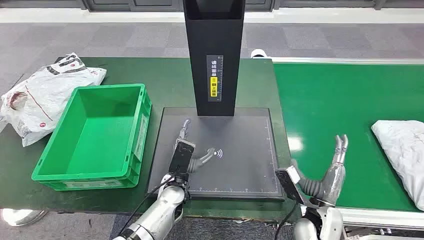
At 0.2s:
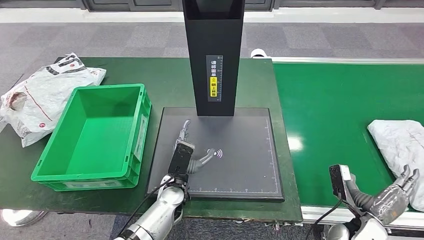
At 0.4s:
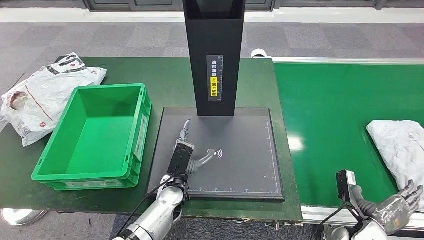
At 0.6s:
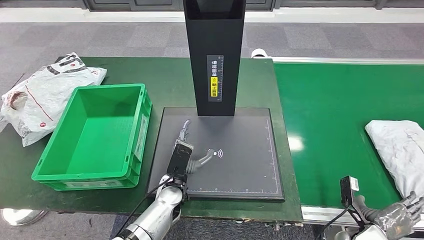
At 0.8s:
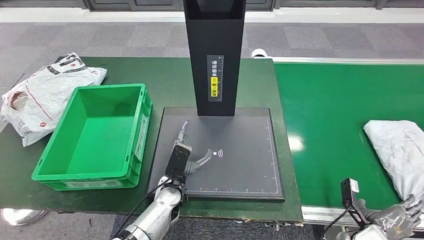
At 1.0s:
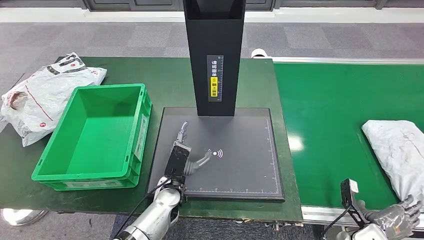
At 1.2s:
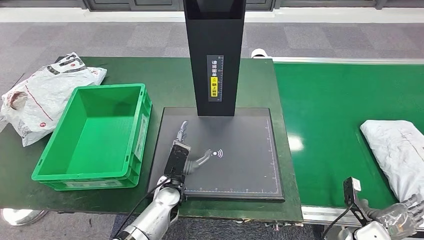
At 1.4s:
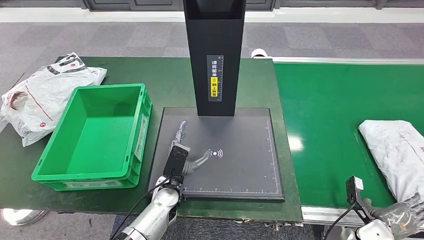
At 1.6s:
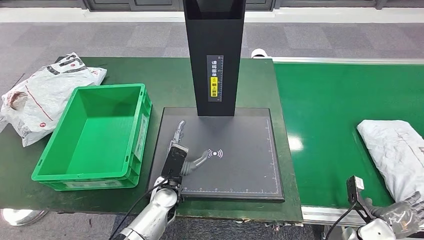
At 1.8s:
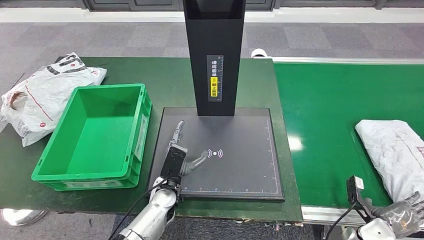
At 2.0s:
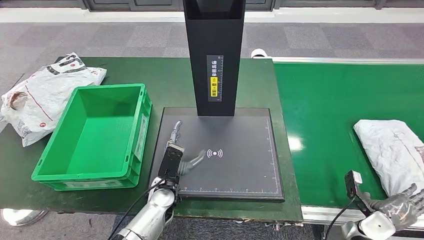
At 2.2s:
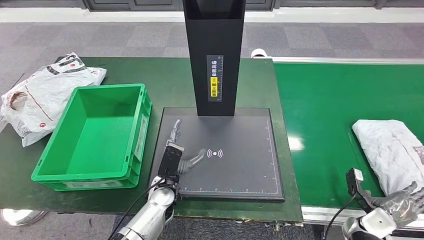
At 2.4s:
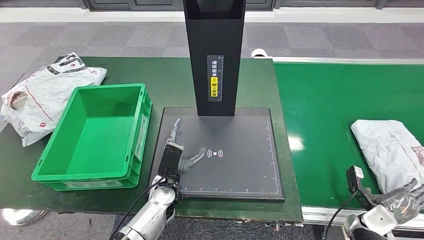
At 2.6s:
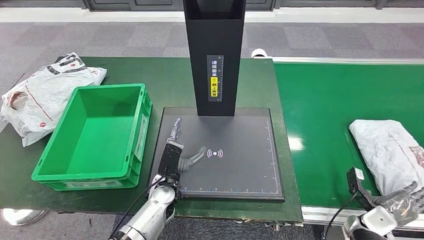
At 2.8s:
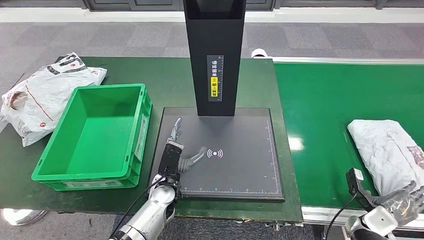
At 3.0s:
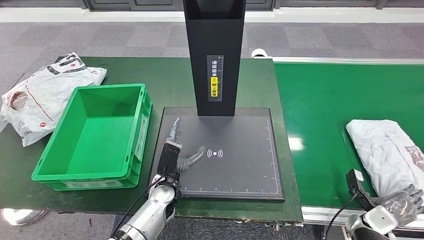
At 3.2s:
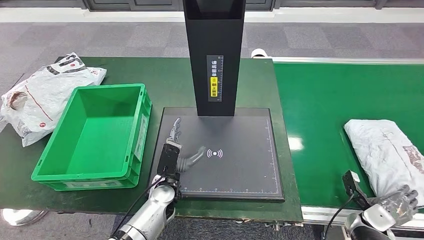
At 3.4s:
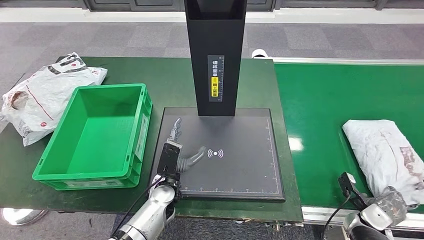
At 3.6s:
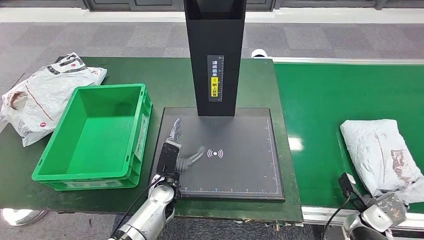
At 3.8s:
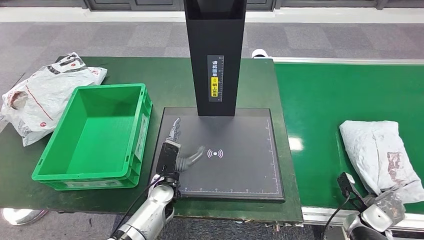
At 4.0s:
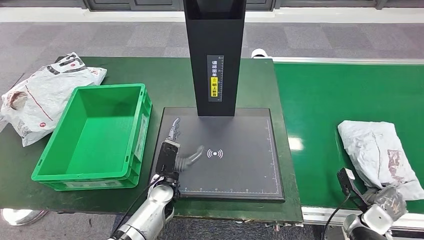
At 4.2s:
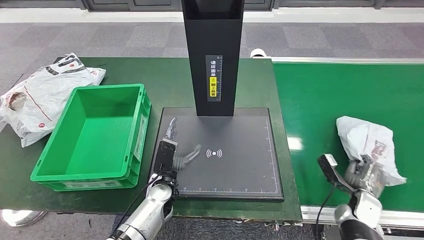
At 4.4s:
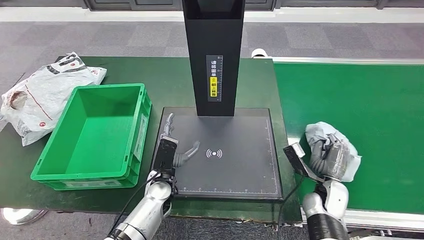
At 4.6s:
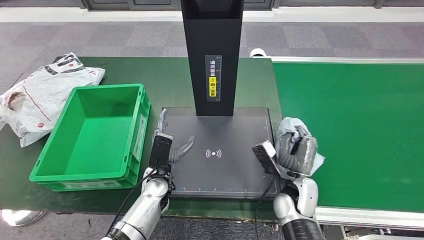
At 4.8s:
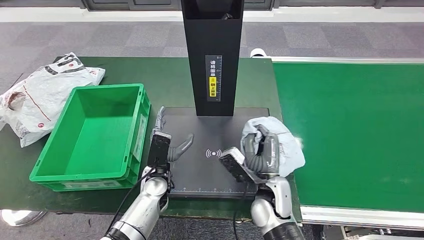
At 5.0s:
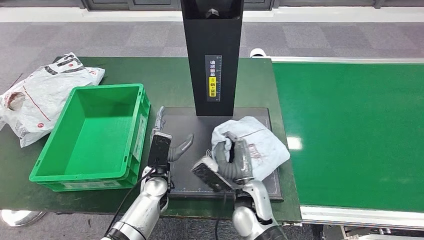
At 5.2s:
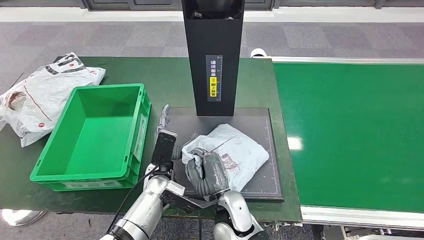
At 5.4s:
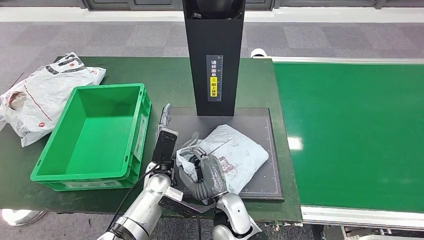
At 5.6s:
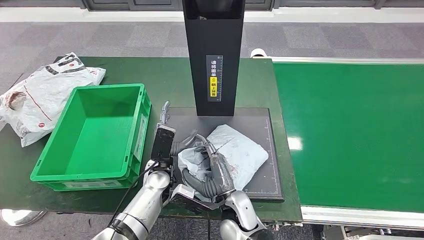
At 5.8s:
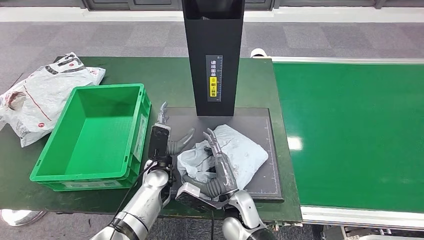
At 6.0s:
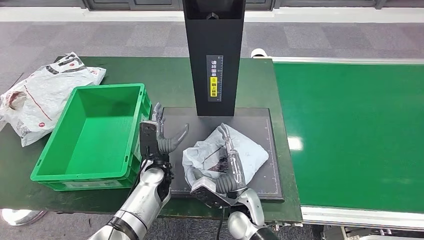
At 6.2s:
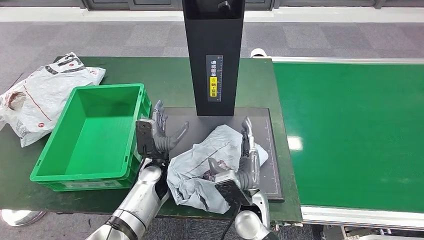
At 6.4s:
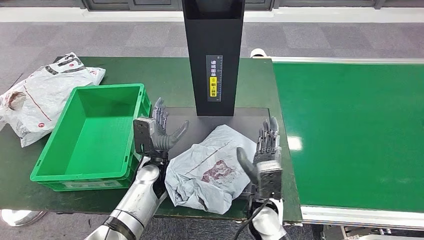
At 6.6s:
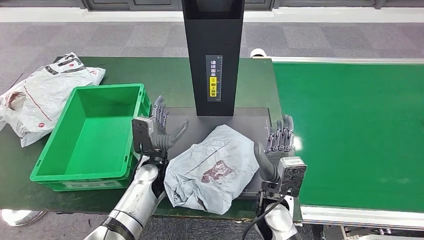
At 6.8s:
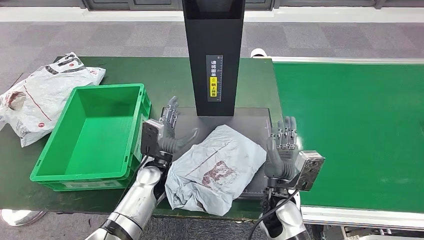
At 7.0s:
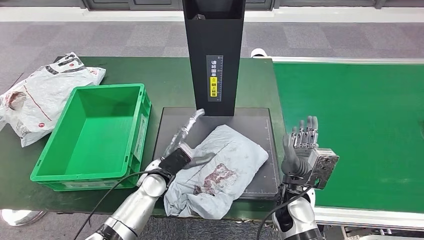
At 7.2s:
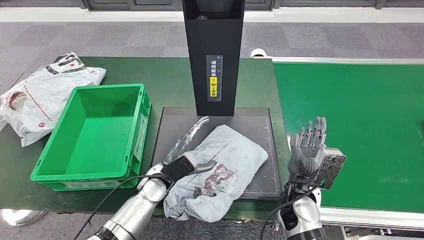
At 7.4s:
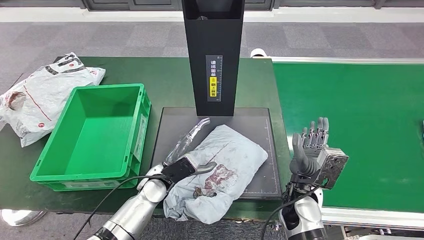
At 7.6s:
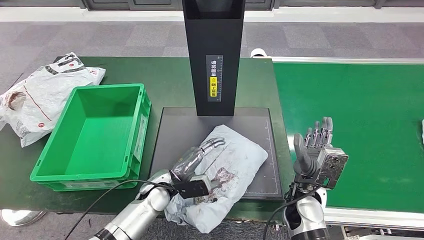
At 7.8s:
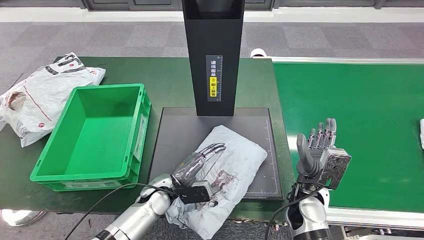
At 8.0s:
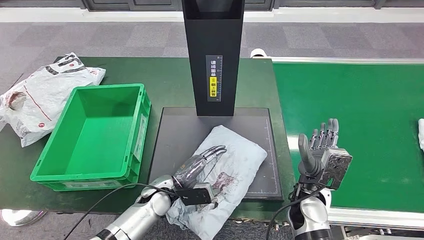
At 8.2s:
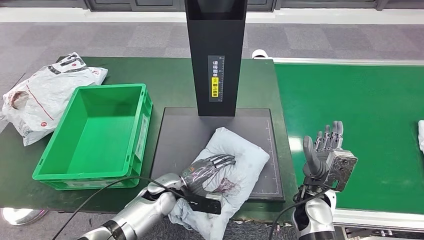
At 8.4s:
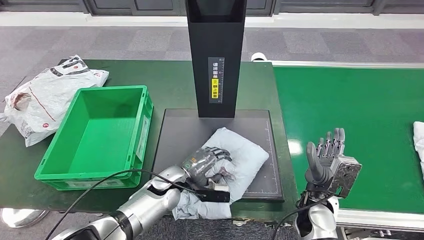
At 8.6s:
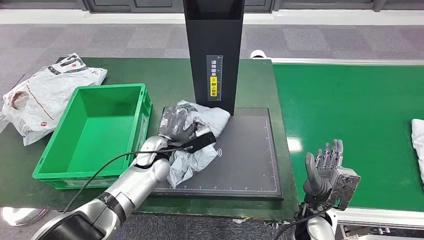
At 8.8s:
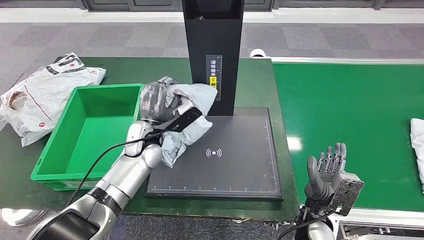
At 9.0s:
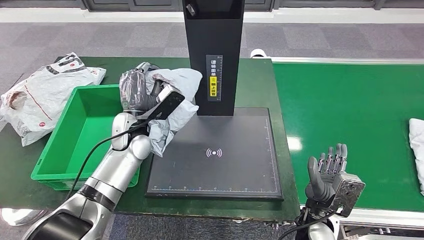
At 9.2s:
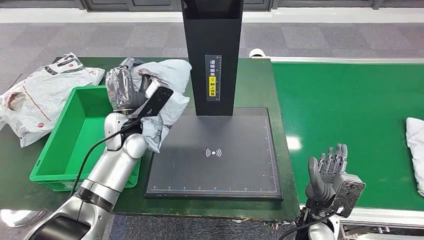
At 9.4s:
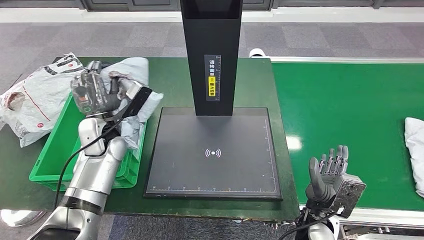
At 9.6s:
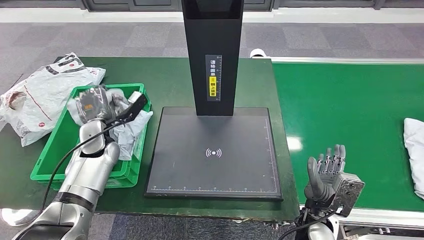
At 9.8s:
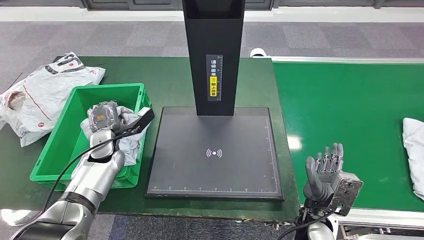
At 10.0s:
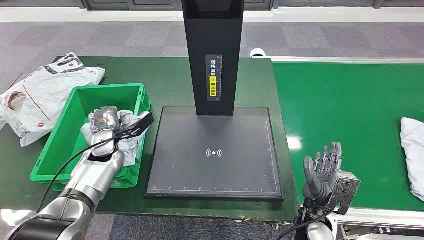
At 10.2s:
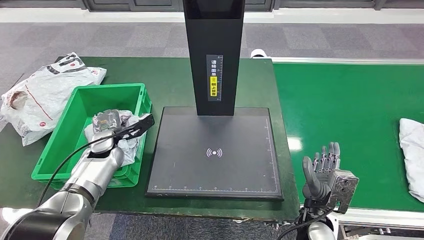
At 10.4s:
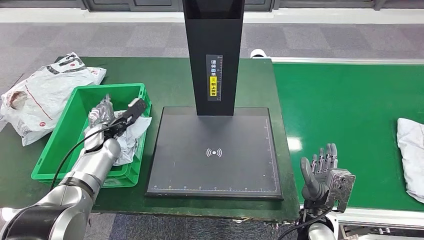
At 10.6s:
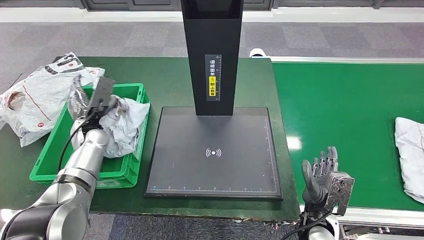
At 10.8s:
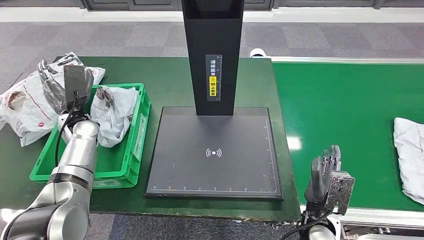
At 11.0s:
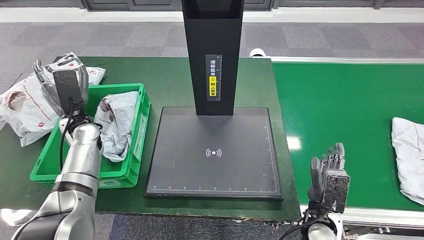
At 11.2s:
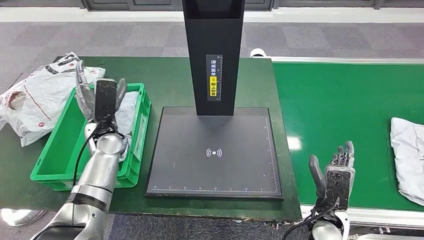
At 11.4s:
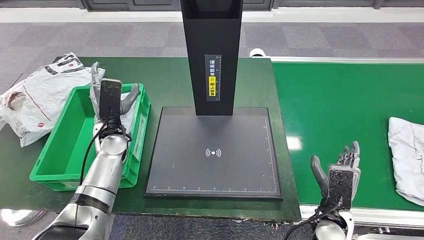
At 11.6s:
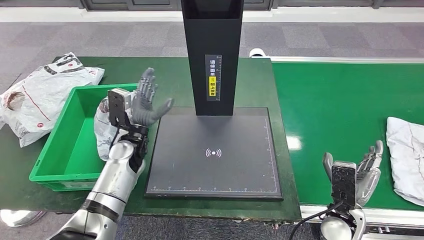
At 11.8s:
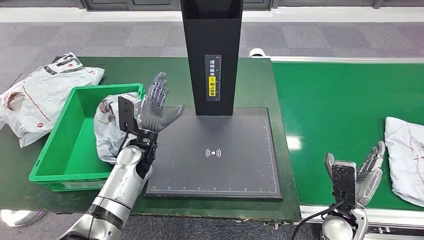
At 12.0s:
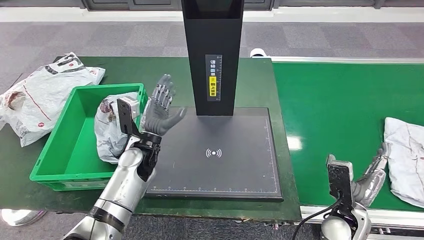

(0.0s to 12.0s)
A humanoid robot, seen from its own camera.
Step, 0.0s - 4.4s: Take the parcel off the conveyor belt.
Step, 4.6s - 6.2s: Place the parcel onto the inbound machine.
Step, 6.4s - 9.0s: Pick up the parcel from the inbound machine.
Step, 9.2s - 10.6s: Put the parcel inside the courier box.
1.6s - 3.0s: The hands stay close to where they were, moving slightly.
3.0s - 4.4s: The right hand shifts approximately 15 cm to the left and upward.
4.4s - 6.0s: The right hand shifts some 20 cm to the left.
6.0s - 7.6s: The right hand goes some 15 cm to the right.
9.0s - 10.4s: The left hand shifts about 15 cm to the left and downward.

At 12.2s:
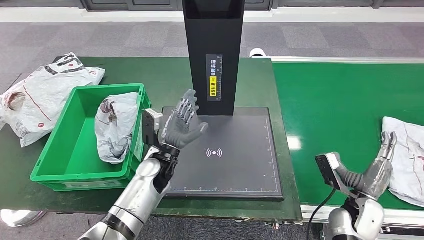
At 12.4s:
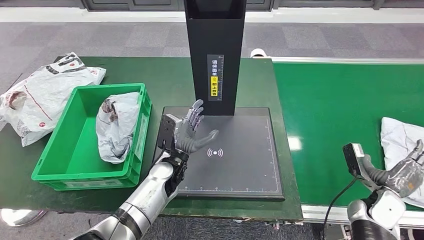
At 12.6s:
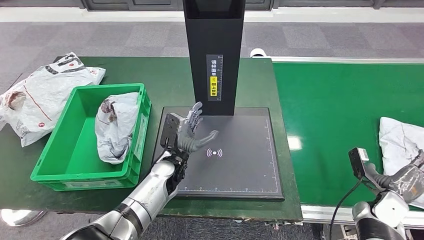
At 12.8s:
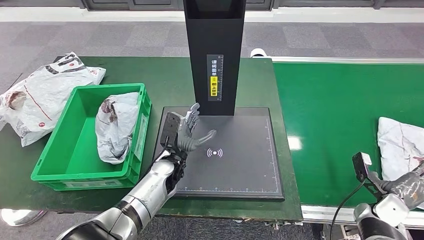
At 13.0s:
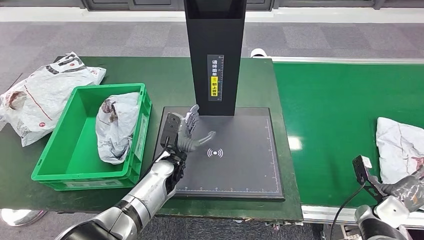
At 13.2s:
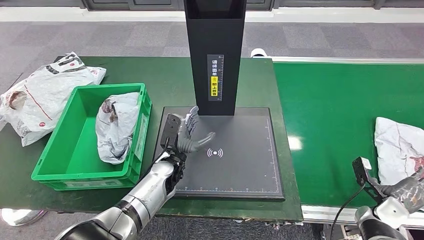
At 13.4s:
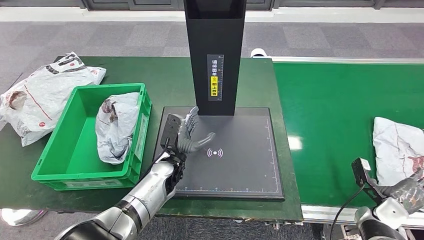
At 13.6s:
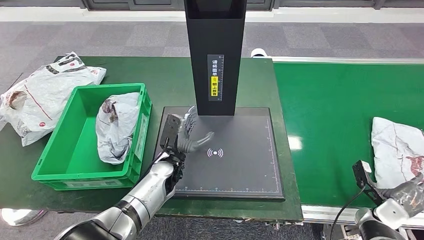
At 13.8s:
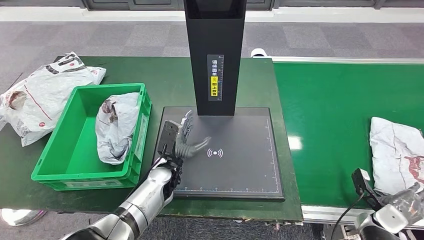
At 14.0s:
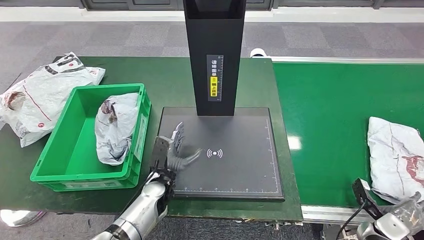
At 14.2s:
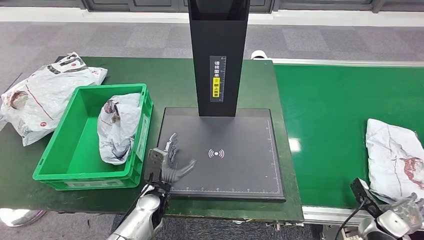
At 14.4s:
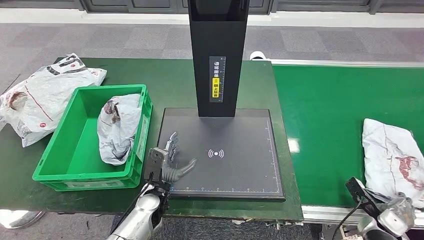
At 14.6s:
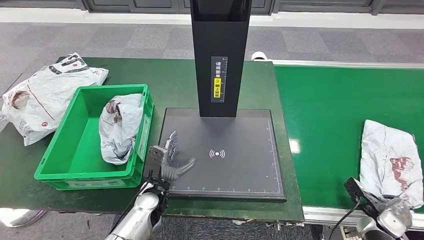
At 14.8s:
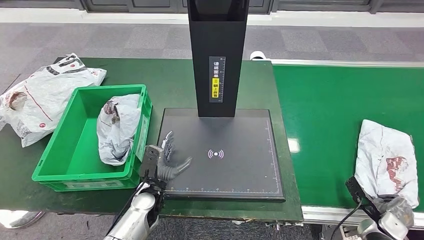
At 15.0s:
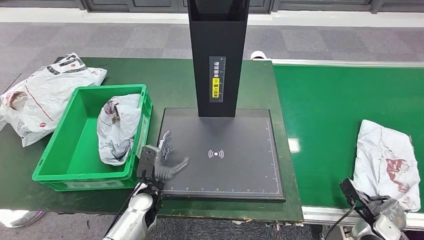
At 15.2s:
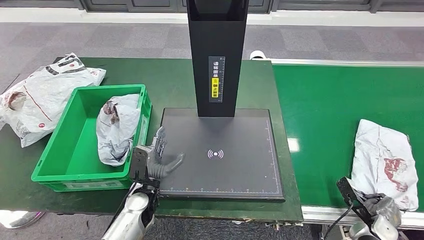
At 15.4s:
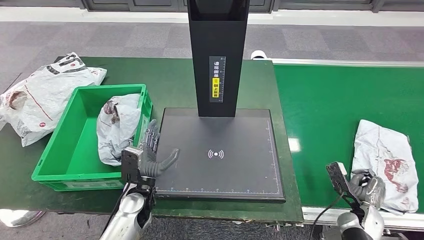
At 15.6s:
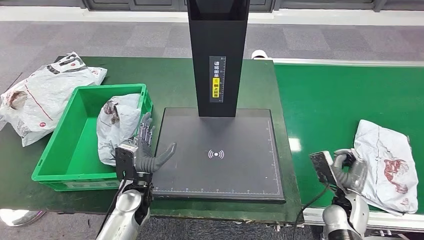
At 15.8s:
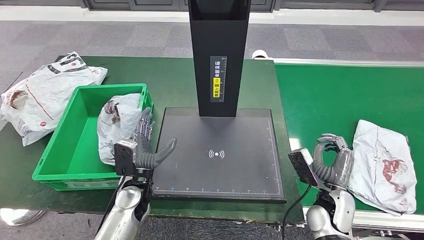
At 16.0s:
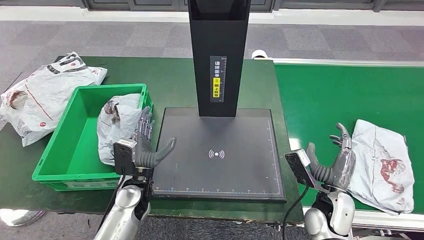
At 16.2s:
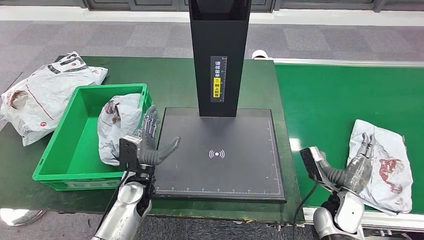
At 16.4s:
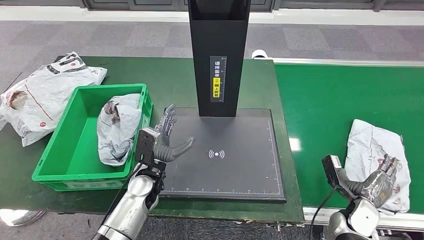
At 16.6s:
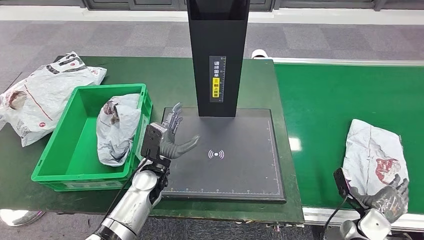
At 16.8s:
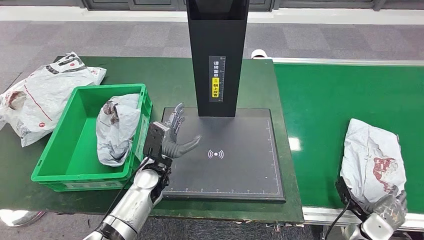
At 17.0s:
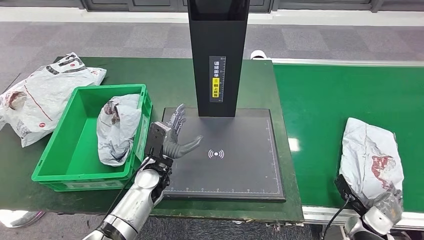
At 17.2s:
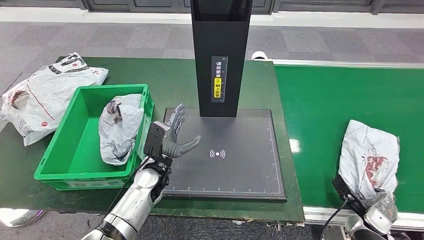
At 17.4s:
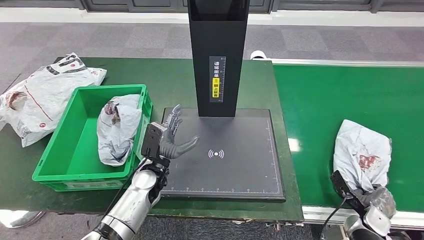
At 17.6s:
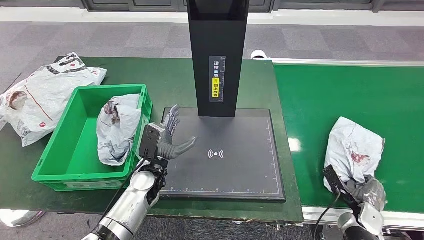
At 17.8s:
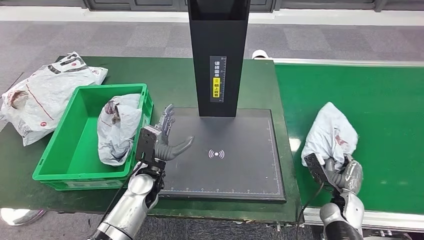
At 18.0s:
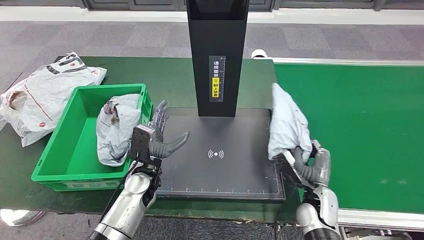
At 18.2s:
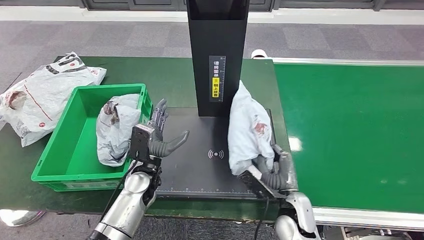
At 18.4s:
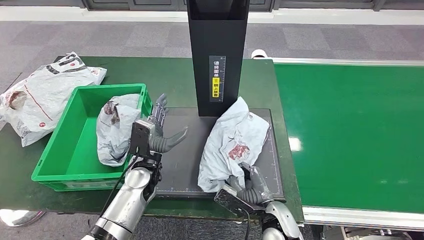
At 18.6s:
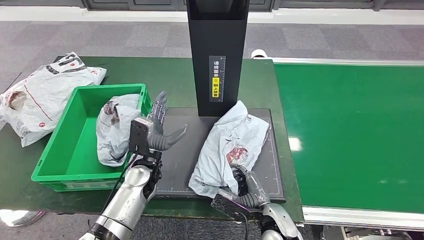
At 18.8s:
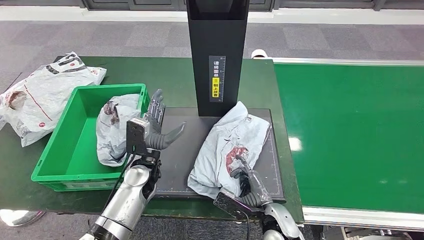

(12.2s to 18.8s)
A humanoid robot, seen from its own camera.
Step, 16.2s - 17.8s: Pick up the parcel from the conveyor belt.
12.2s - 13.8s: The left hand is displaced downward by roughly 5 cm. Meanwhile the right hand heads to the right and downward, covering approximately 10 cm.
15.4s - 17.2s: The right hand reaches approximately 10 cm to the left, then returns, while the left hand goes approximately 5 cm forward.
